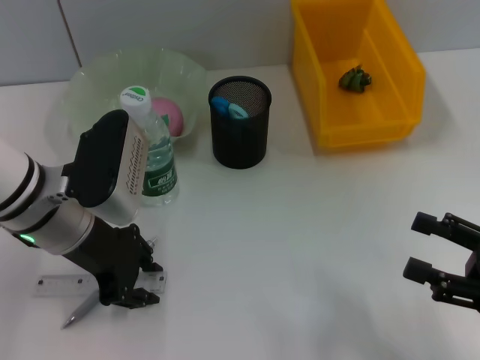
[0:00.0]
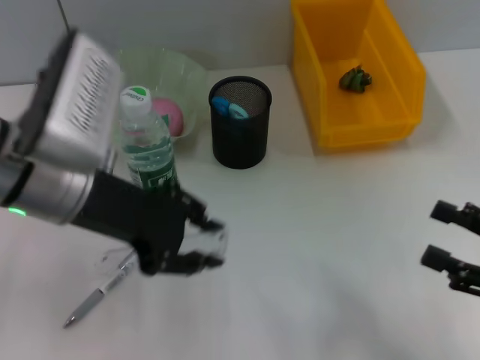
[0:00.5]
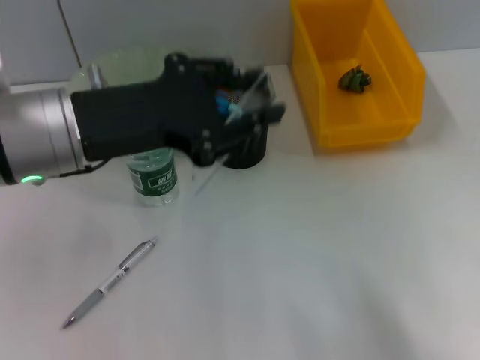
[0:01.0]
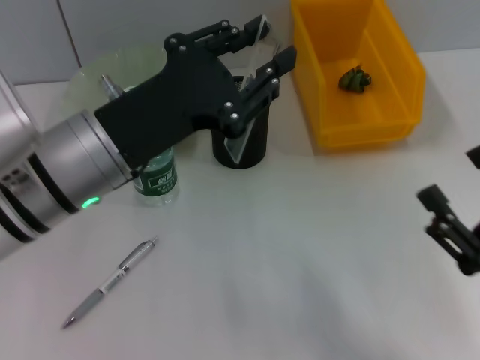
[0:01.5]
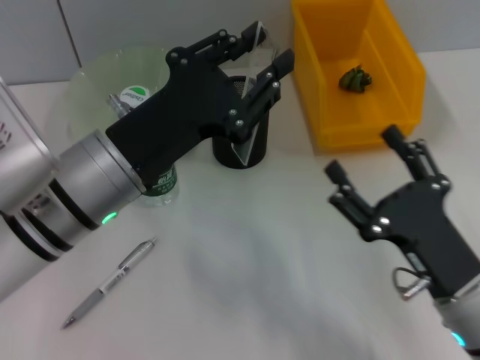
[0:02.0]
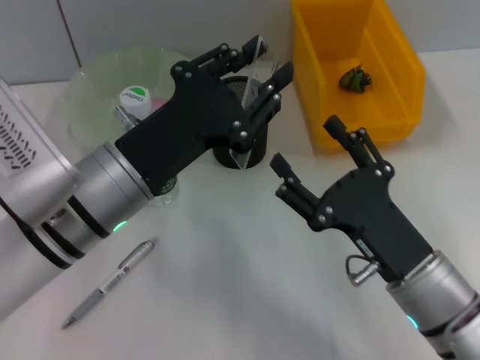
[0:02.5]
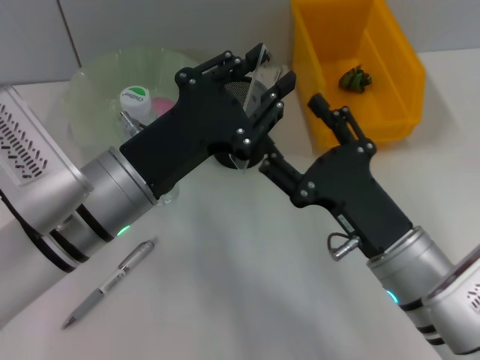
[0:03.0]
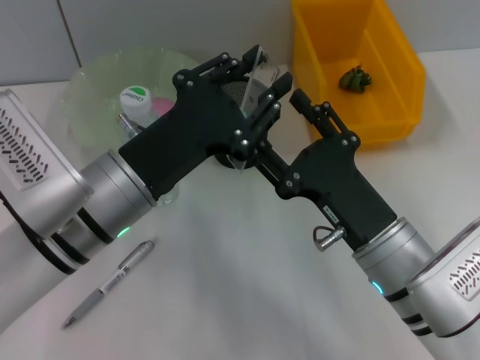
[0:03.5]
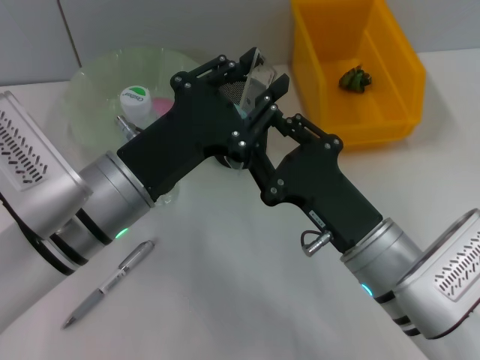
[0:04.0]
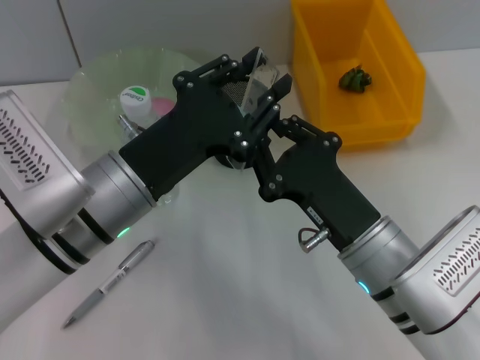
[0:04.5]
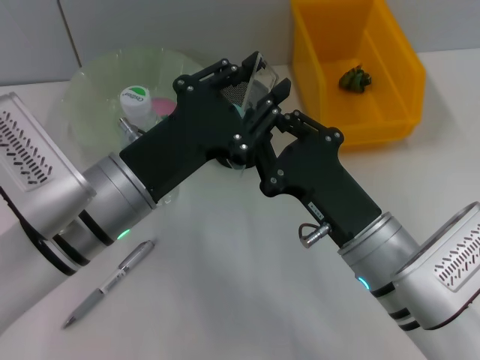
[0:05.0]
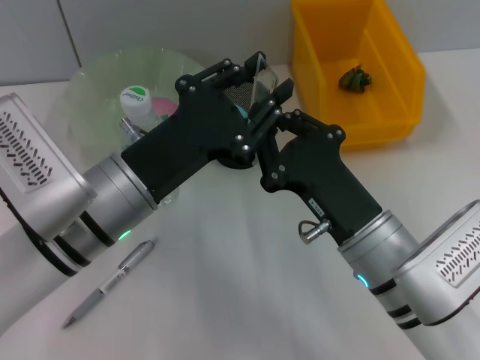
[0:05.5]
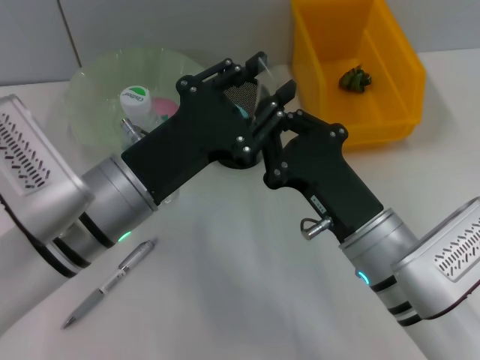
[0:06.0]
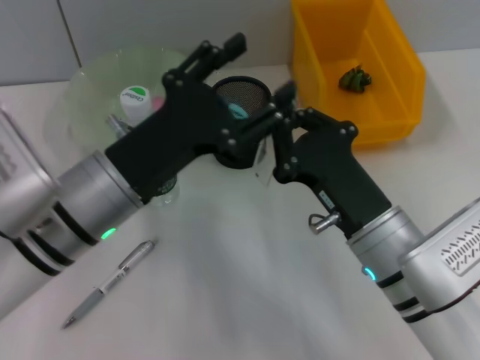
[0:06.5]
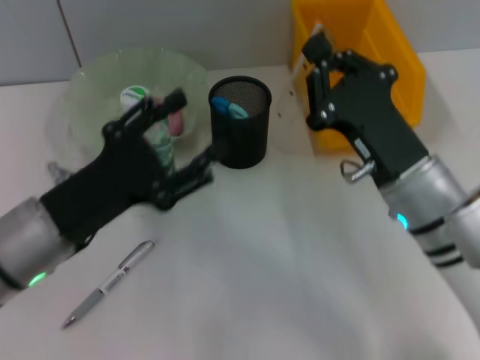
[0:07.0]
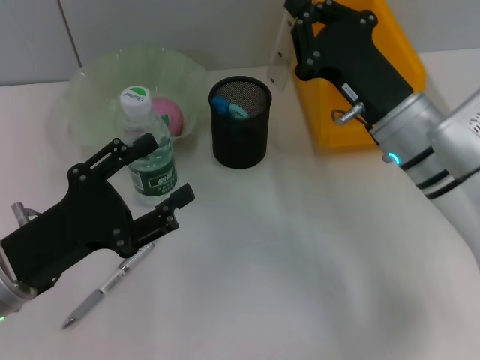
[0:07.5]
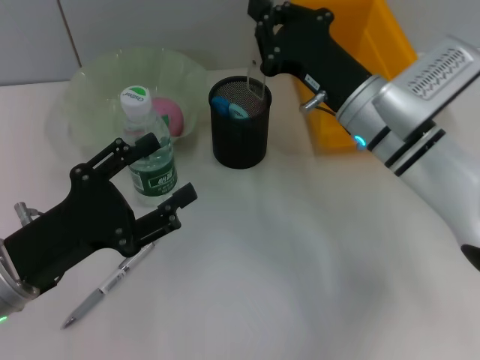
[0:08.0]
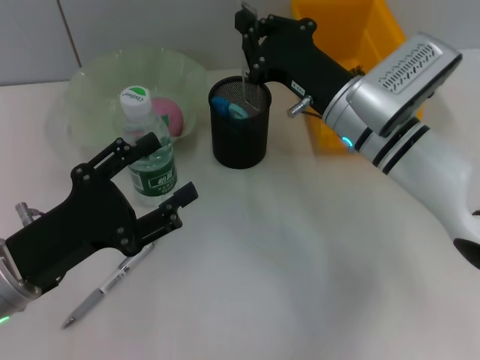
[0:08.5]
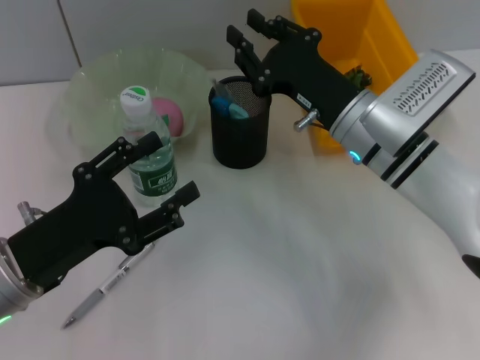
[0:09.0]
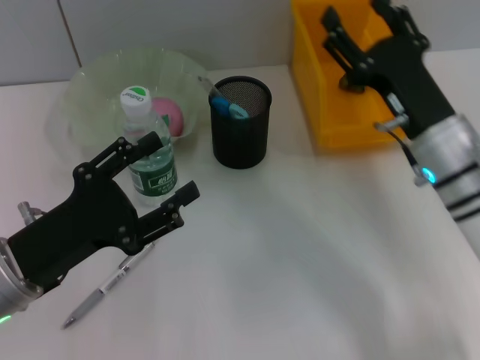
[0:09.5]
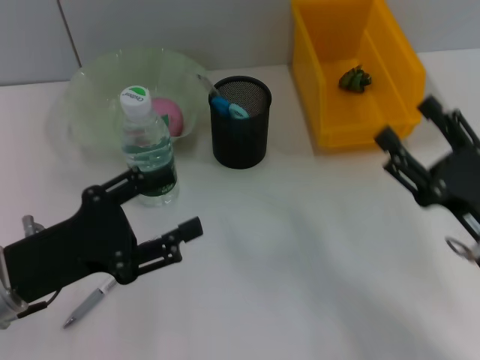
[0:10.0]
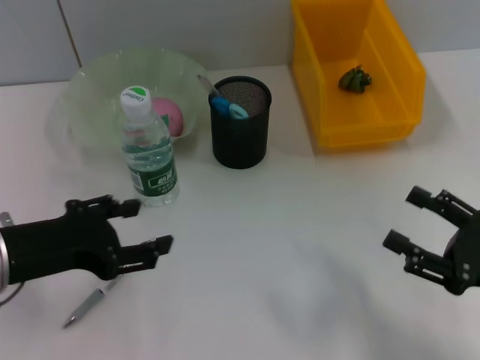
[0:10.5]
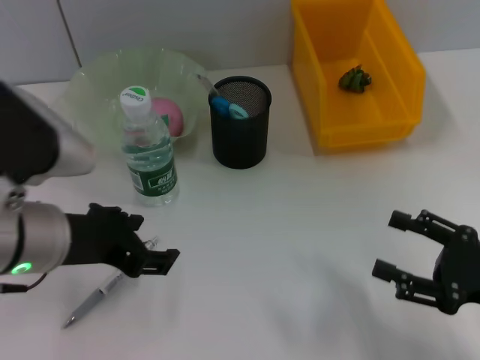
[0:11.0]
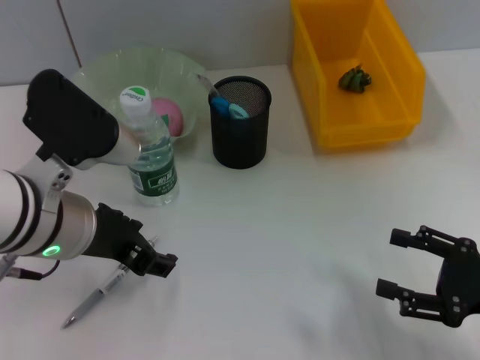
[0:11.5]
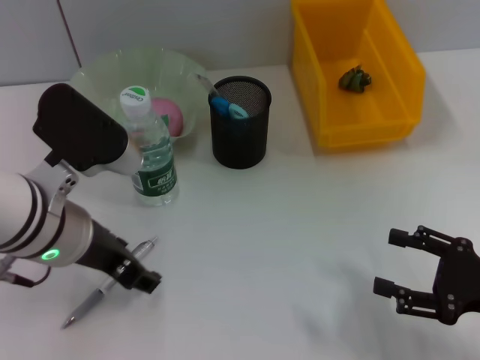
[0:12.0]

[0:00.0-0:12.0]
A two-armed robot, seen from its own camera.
Step, 0:00.5 to 0:06.0: Pass the ruler from the left hand to the right hand.
Step, 0:06.5 to 0:09.0: Place the ruler into the pen holder with the right hand.
0:00.0 to 0:02.0: The left gripper moves backward, approximately 5 cm, and travels upward and back again, roughly 10 cm each way. Meanwhile the right gripper goes some 15 cm to the left.
0:02.0 to 0:04.0: The right gripper moves to the left, about 5 cm, and closes.
0:04.0 to 0:06.0: The right gripper closes up.
0:06.0 to 0:08.0: The right gripper travels forward by about 10 cm, while the left gripper goes approximately 10 cm to the left.
0:08.0 to 0:10.0: The right gripper travels backward and to the right by about 20 cm, and opens.
0:10.0 to 0:12.0: The left gripper shifts roughly 10 cm to the right, upward and forward; the right gripper shifts about 5 cm to the right.

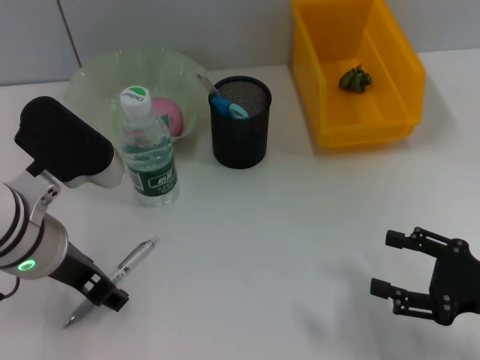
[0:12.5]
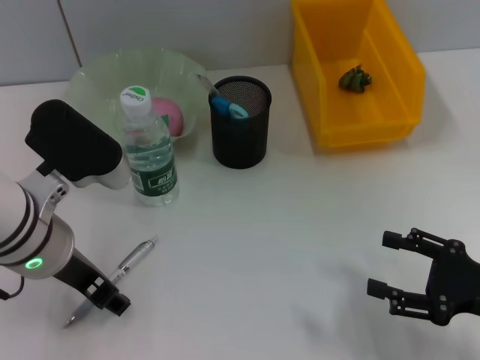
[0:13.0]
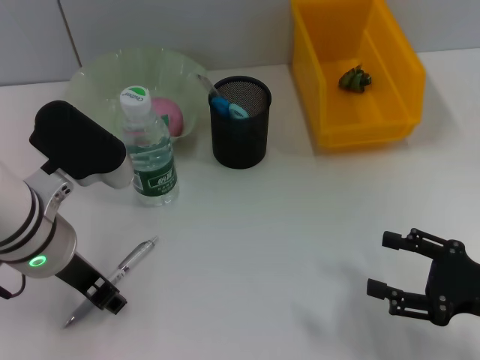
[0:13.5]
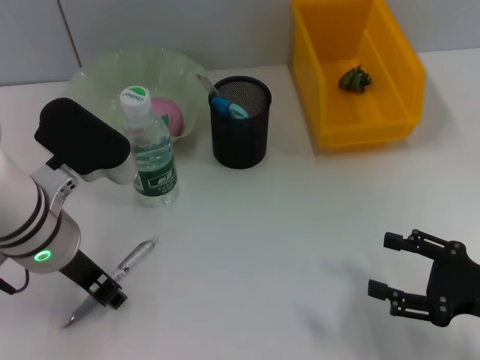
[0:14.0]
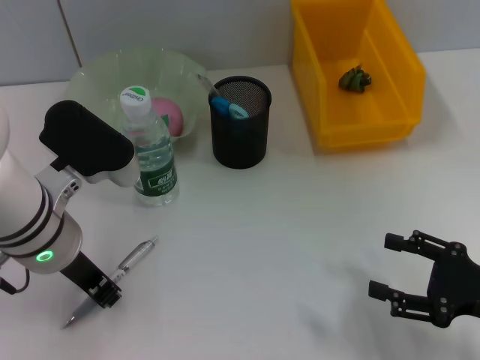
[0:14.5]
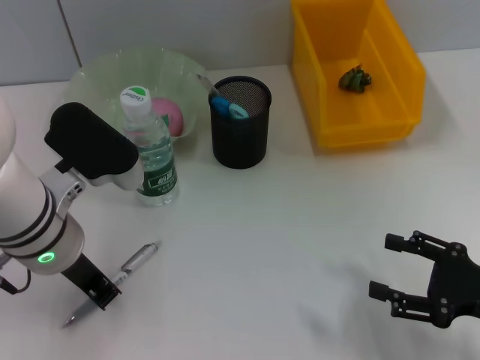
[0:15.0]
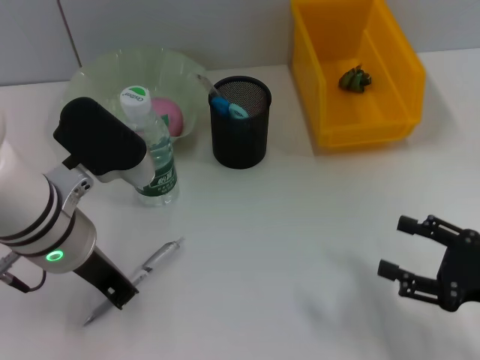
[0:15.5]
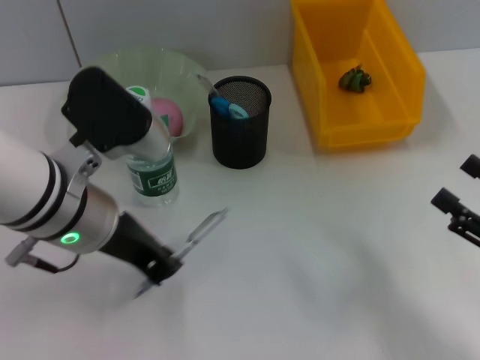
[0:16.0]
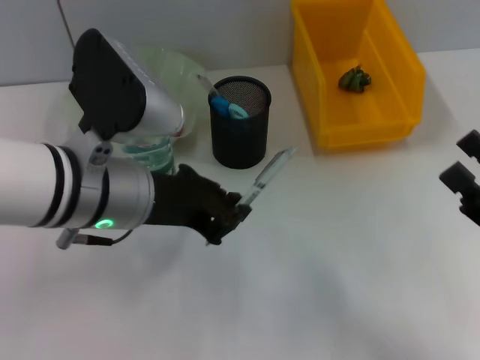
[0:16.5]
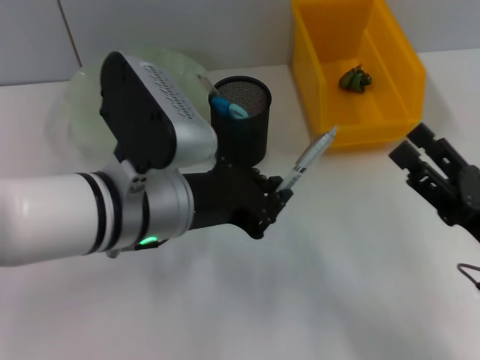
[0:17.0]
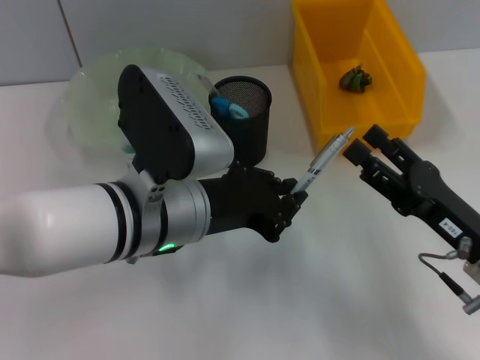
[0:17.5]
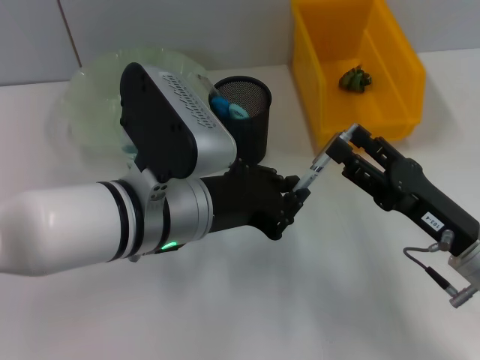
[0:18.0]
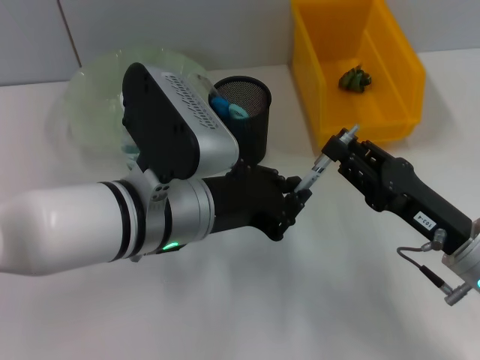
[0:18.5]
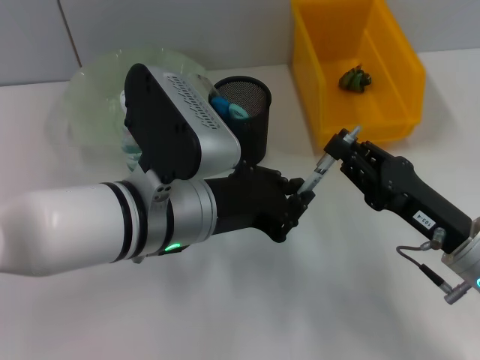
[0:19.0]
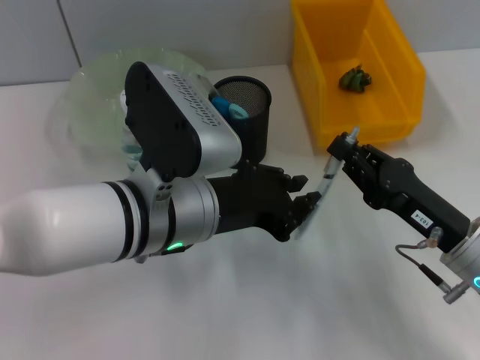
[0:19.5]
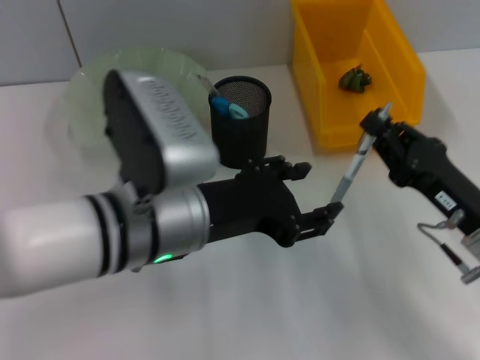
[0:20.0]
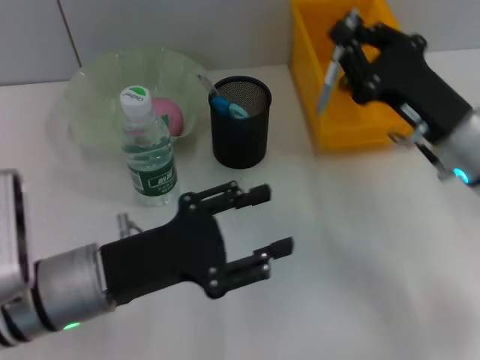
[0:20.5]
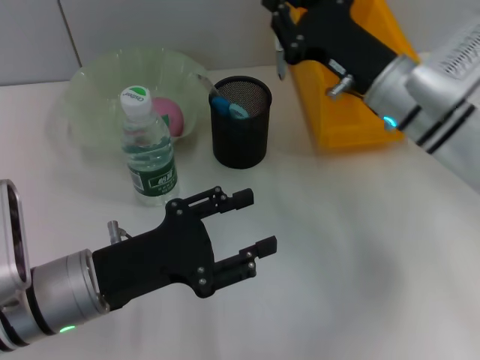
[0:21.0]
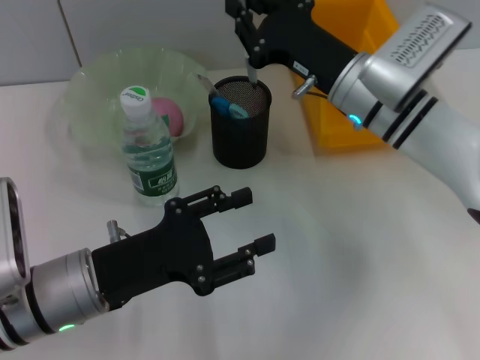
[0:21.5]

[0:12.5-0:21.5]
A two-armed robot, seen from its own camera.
Step, 0:12.5 to 0:15.0: Grab the gray spring-action pen with the left hand.
Step, 0:15.5 to 0:19.0: Pass the gray spring-action pen from the left hand to the right hand.
0:12.5 to 0:14.5: The left gripper closes up.
0:14.5 to 0:17.0: The left gripper goes about 5 cm to the right.
0:17.0 to 0:19.5: The right gripper ends up approximately 5 cm from where it was, and closes.
0:19.5 to 0:21.5: The left gripper shifts about 15 cm to the left and downward, and opens its fingers, while the right gripper heads forward, to the left and upward, covering approximately 20 cm.

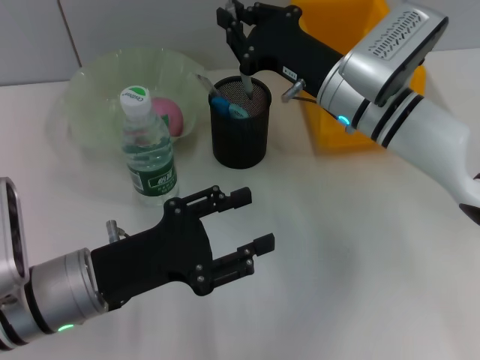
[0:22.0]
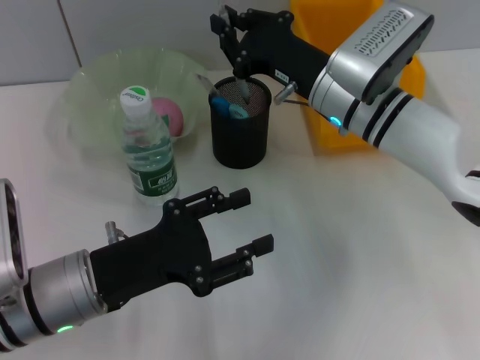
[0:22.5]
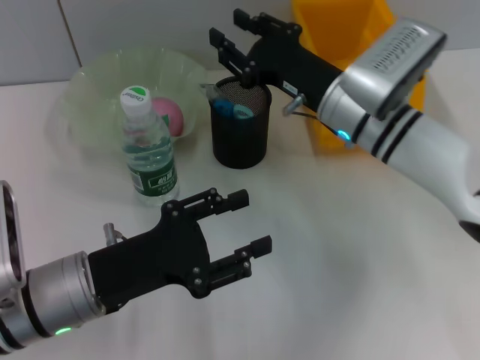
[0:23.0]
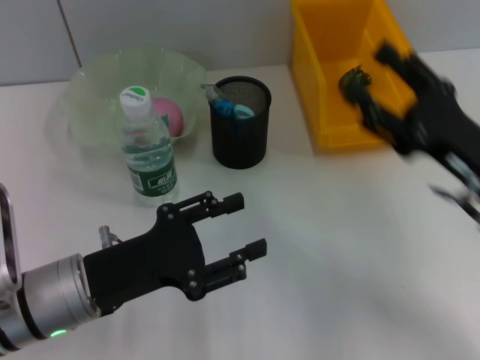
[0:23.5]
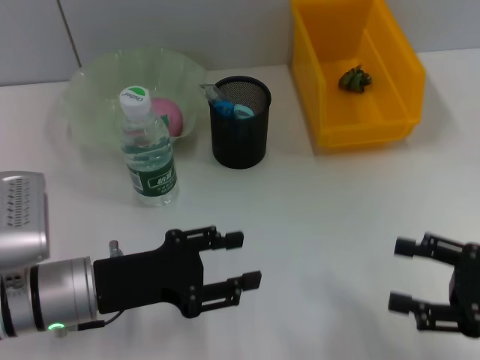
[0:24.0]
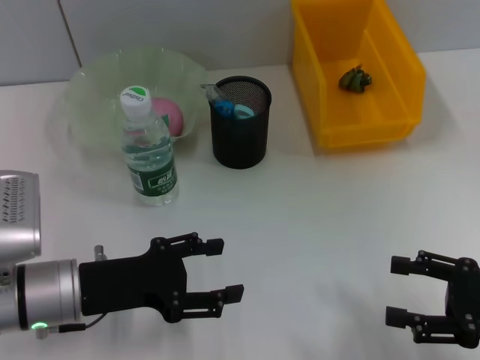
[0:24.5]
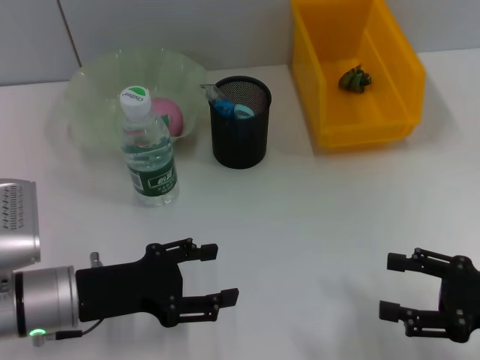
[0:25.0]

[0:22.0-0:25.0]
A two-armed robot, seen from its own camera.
0:22.0 to 0:23.5: The right gripper is displaced backward and to the right by about 15 cm, and opens.
0:23.5 to 0:25.0: The right gripper travels backward and to the right by about 10 cm.
